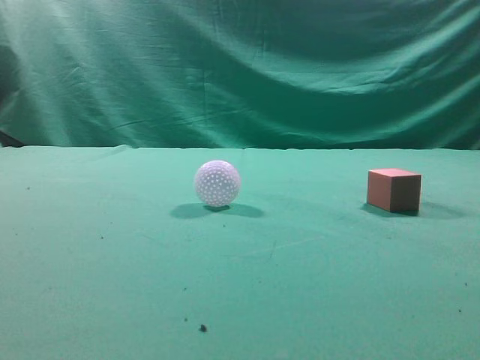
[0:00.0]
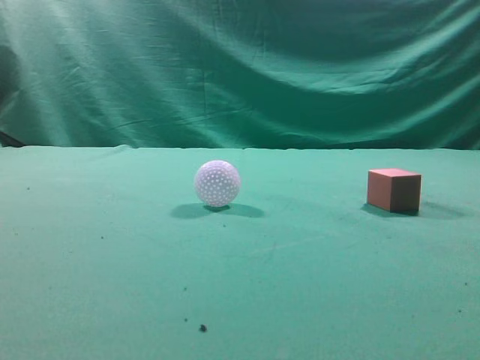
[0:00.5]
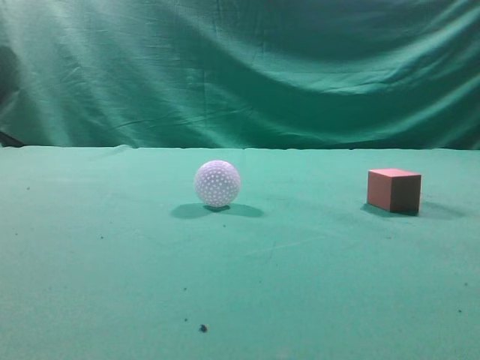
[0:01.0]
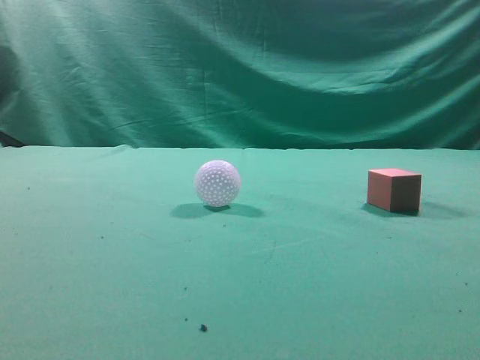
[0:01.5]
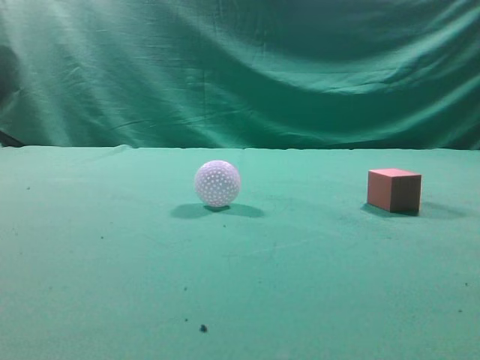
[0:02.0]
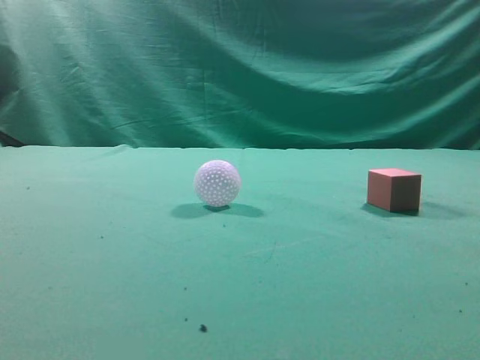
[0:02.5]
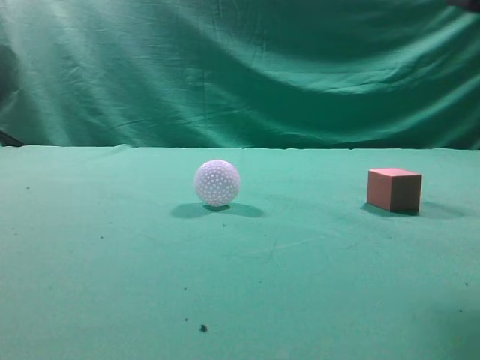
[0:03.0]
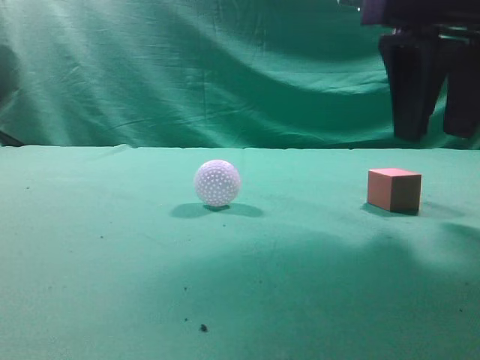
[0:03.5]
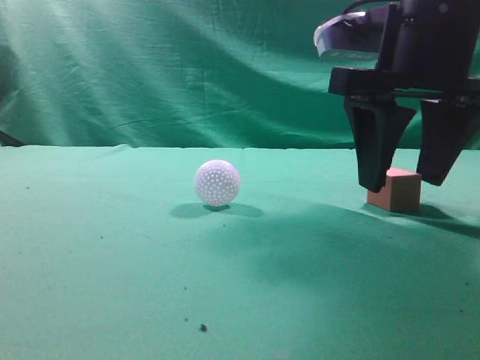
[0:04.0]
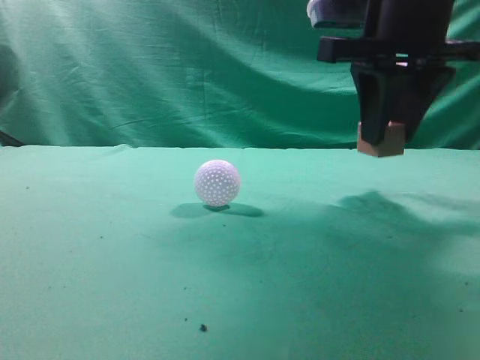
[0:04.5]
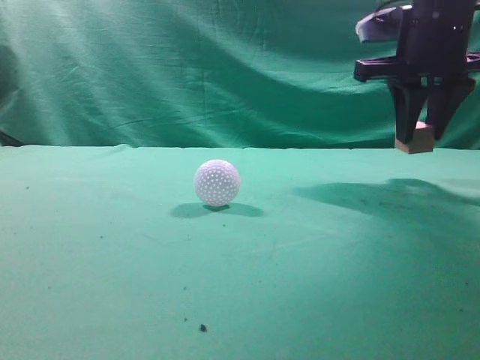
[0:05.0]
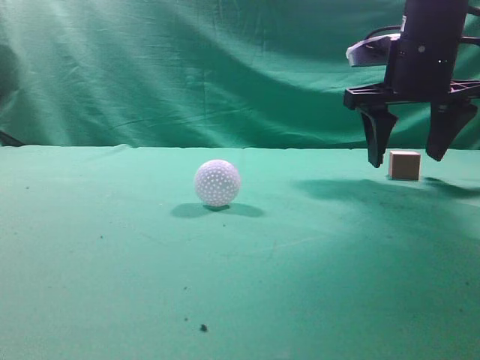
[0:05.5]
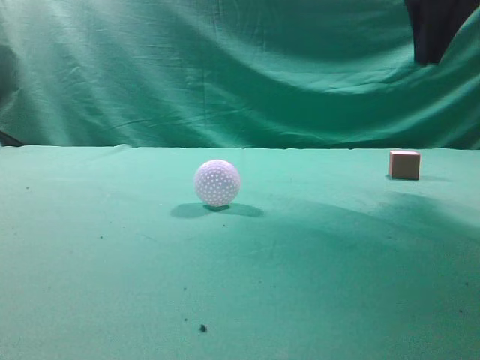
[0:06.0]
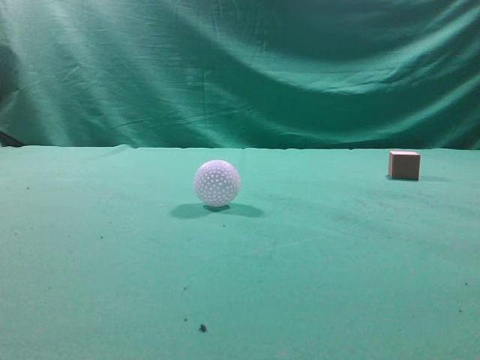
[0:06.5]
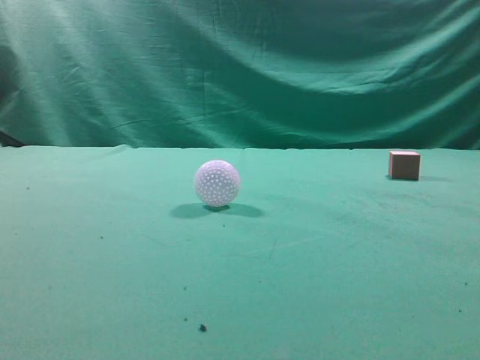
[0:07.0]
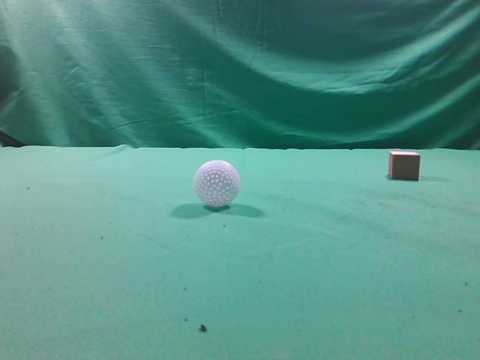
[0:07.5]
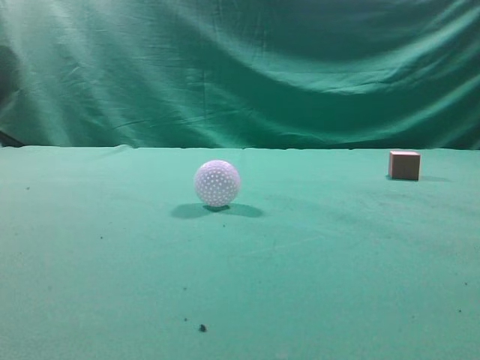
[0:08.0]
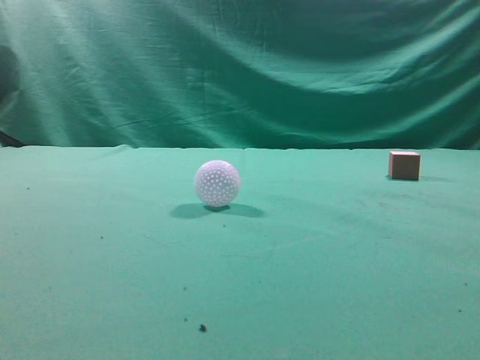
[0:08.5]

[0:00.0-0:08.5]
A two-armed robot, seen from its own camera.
Task of the whole recording: pick up the cube block and place it in another position on the table.
Step, 0:00.0 to 0:04.0: Pick up the small cube.
Step, 0:04.5 to 0:05.5: Place the small cube on the ahead of the table.
0:02.0 to 0:04.0: The right gripper goes some 25 cm forward, to the left and downward, and opens up.
0:04.0 to 0:06.5: The right gripper heads upward, to the right and backward, covering roughly 25 cm, and closes its fingers.

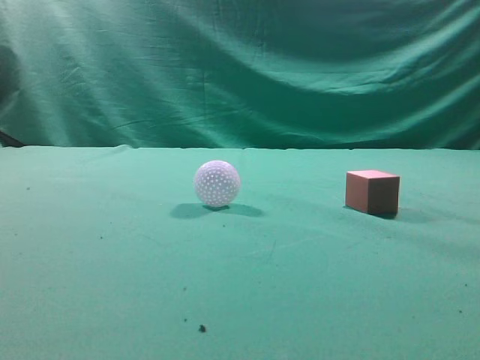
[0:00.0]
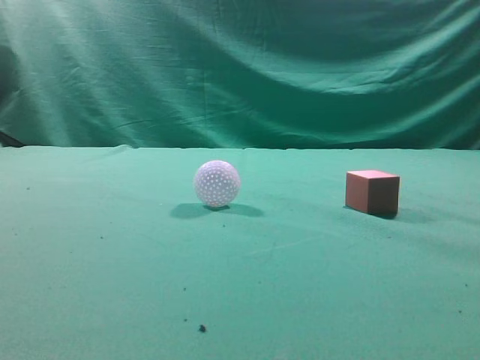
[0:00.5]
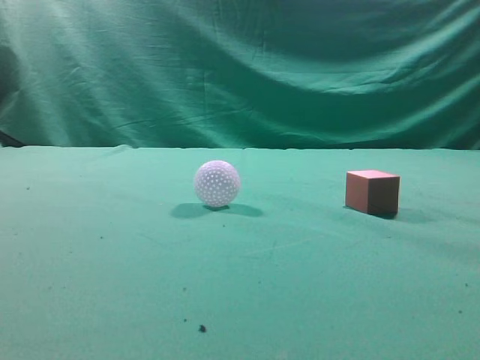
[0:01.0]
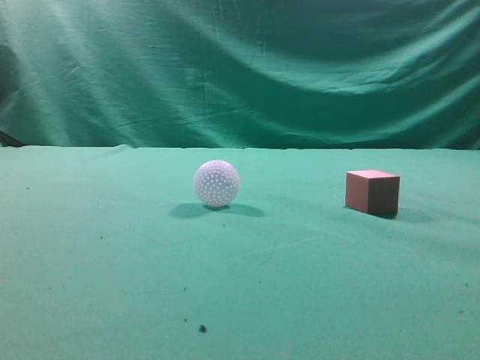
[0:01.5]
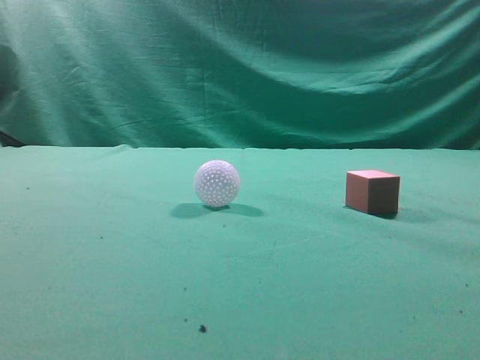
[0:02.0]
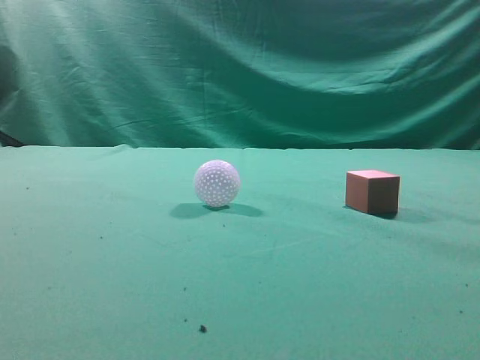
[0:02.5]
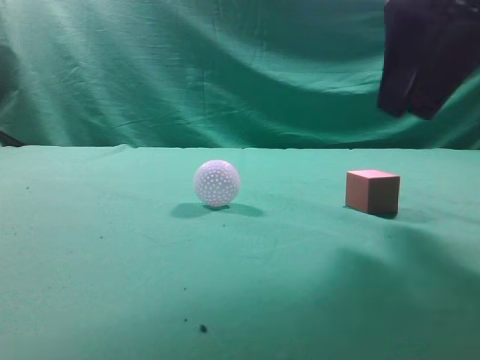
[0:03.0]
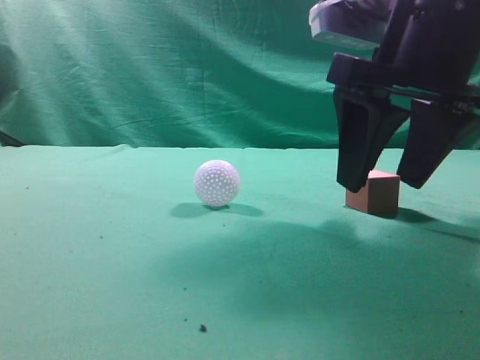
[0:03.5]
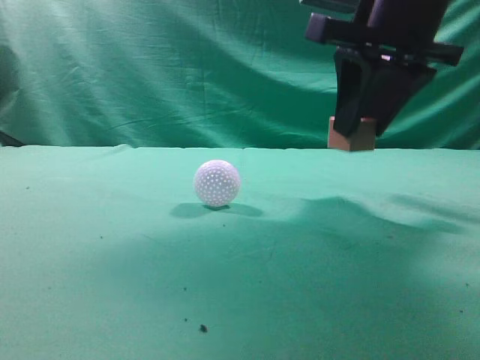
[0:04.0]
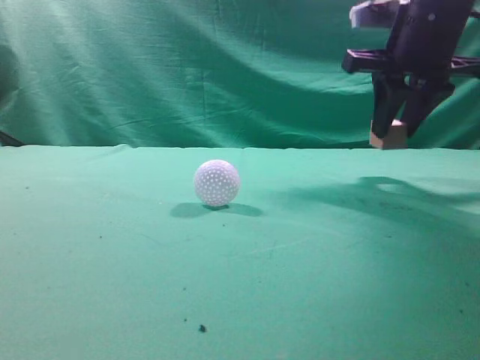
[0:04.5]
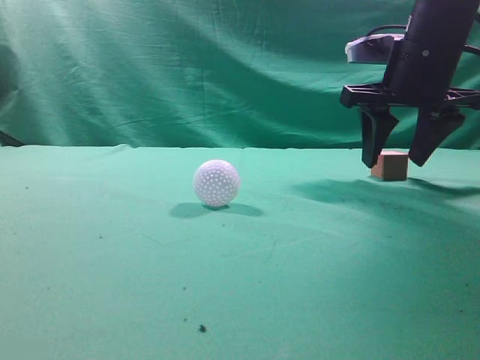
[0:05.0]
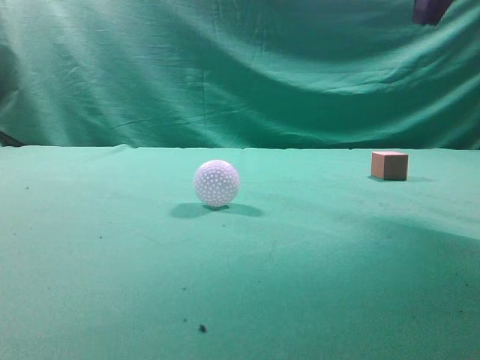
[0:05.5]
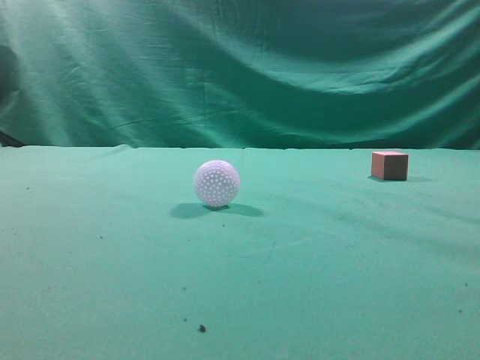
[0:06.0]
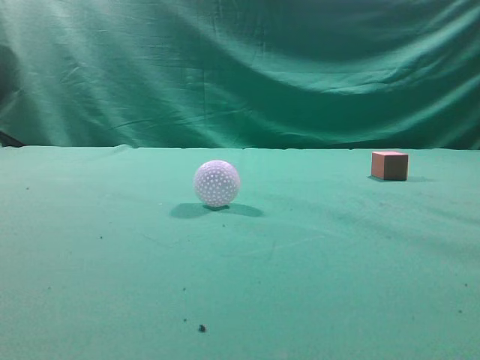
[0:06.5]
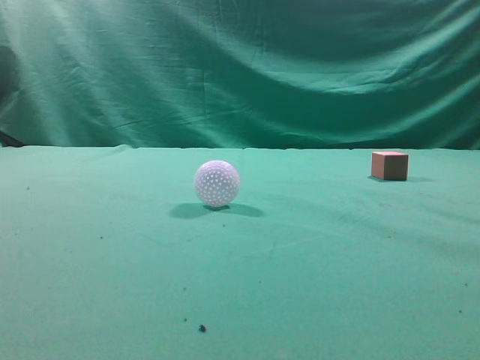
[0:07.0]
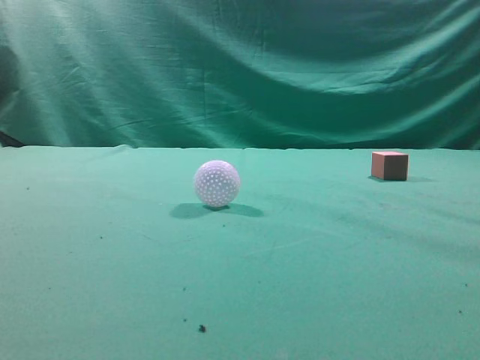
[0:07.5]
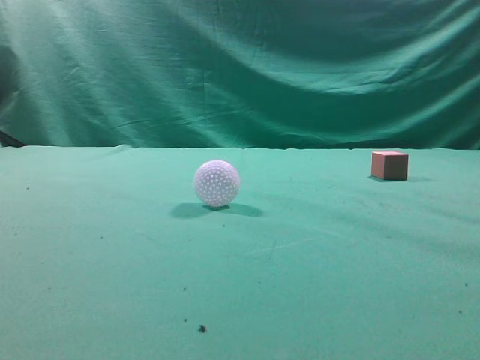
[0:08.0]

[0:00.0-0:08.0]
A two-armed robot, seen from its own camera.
Task of the whole recording: pick up the cube block and place it in another position on the table.
Step, 0:00.0 to 0:03.5: Pick up the small cube.
Step, 0:04.0 to 0:05.0: Place the small cube on the ahead of the table.
0:02.0 to 0:04.0: The right gripper shifts roughly 25 cm forward and to the left, and opens.
0:04.0 to 0:06.0: The right gripper is displaced backward, to the right and upward by about 20 cm, and closes.
